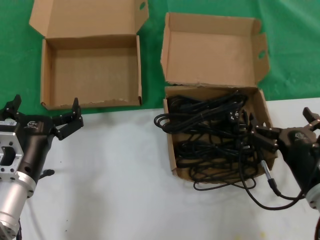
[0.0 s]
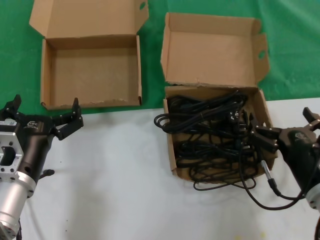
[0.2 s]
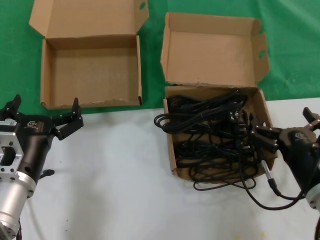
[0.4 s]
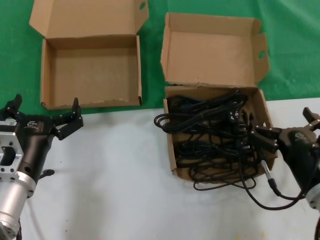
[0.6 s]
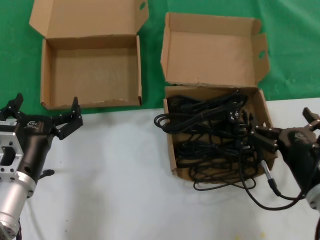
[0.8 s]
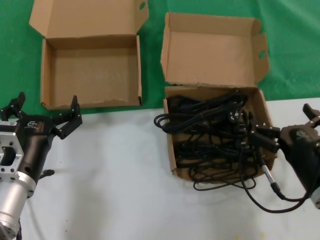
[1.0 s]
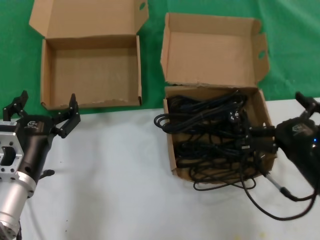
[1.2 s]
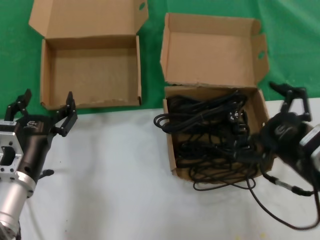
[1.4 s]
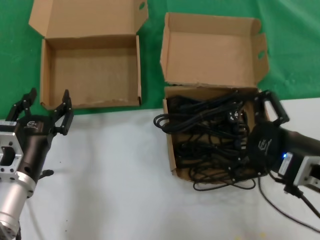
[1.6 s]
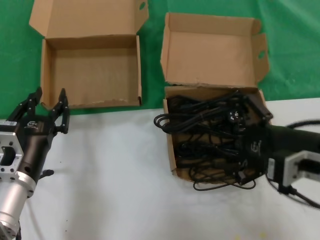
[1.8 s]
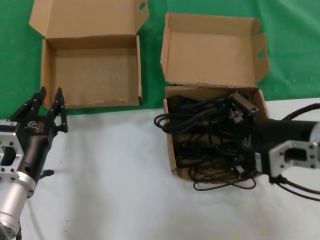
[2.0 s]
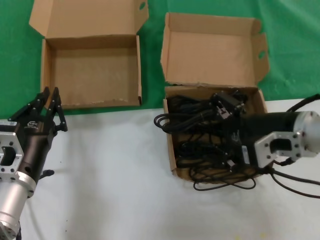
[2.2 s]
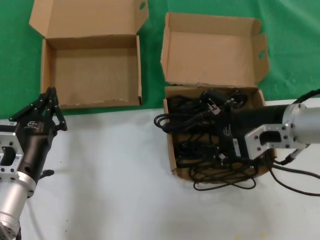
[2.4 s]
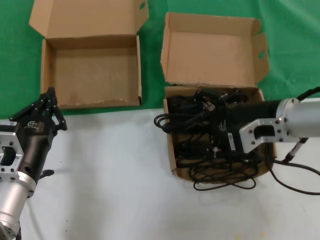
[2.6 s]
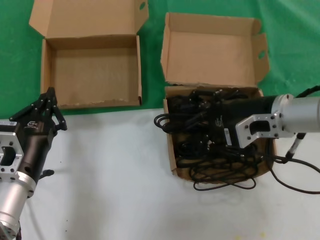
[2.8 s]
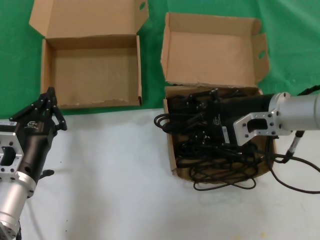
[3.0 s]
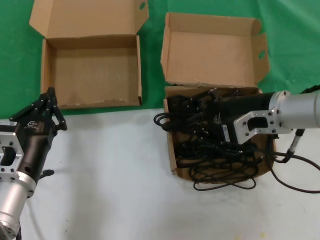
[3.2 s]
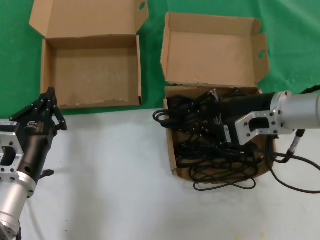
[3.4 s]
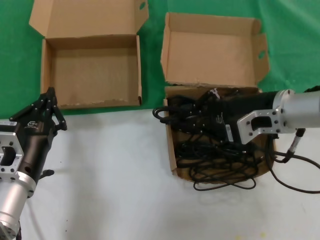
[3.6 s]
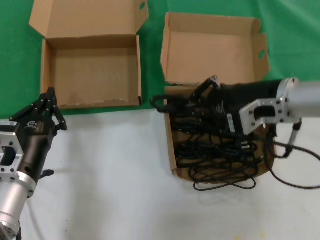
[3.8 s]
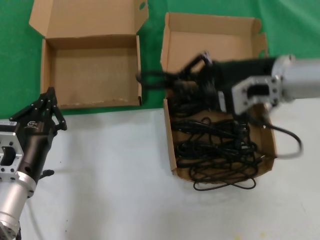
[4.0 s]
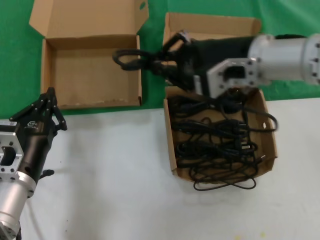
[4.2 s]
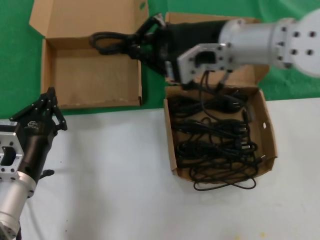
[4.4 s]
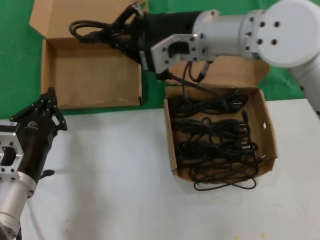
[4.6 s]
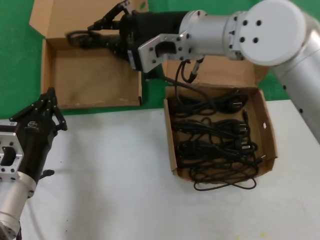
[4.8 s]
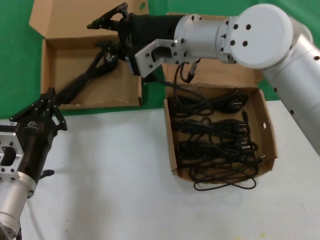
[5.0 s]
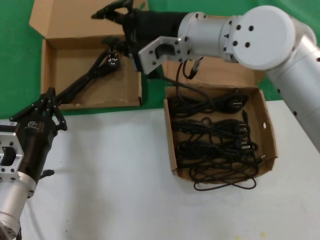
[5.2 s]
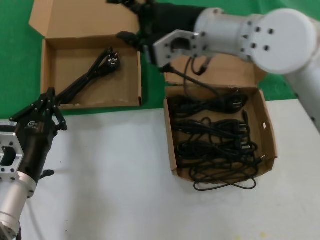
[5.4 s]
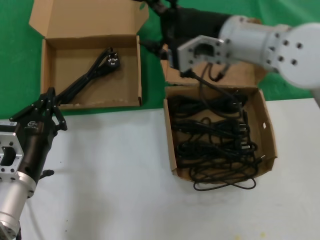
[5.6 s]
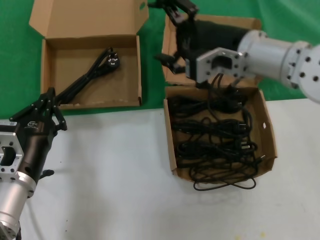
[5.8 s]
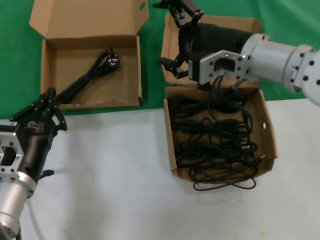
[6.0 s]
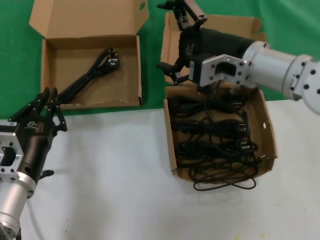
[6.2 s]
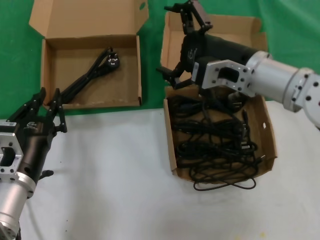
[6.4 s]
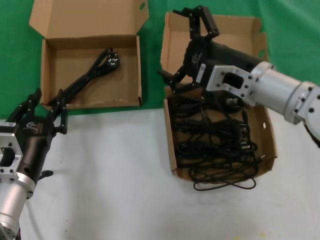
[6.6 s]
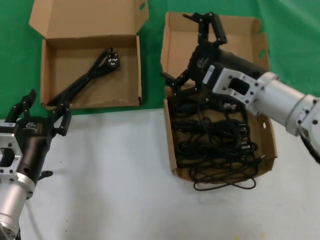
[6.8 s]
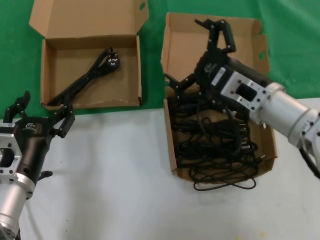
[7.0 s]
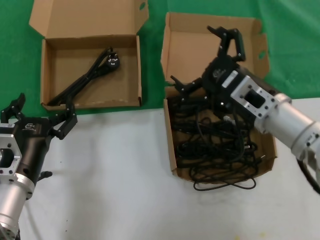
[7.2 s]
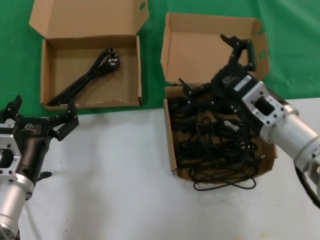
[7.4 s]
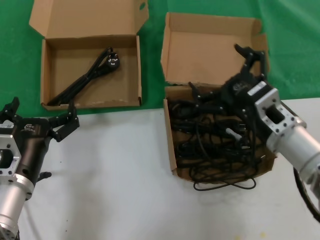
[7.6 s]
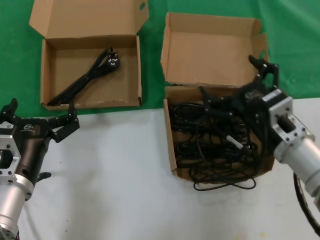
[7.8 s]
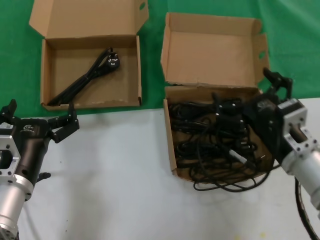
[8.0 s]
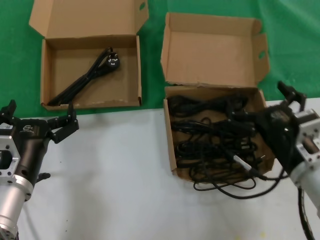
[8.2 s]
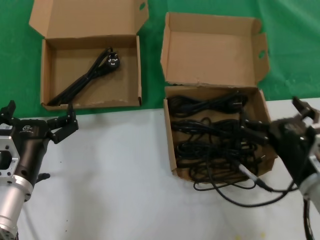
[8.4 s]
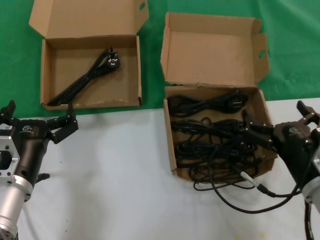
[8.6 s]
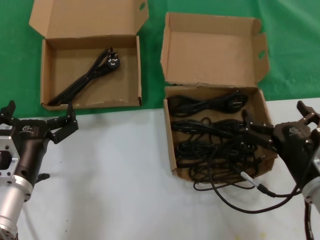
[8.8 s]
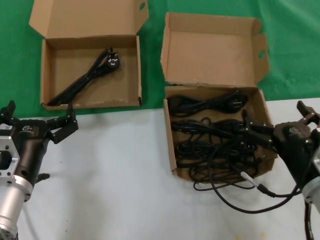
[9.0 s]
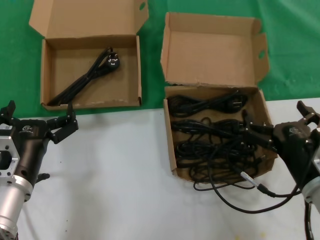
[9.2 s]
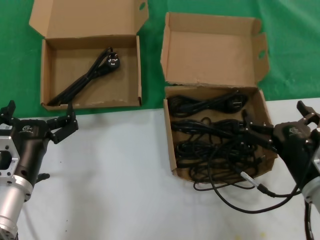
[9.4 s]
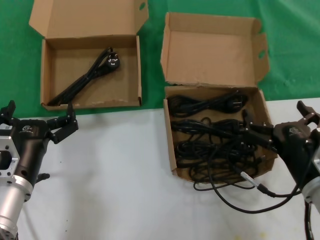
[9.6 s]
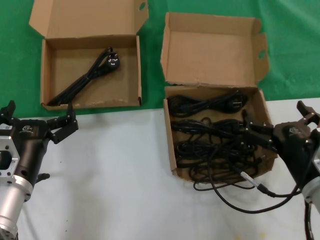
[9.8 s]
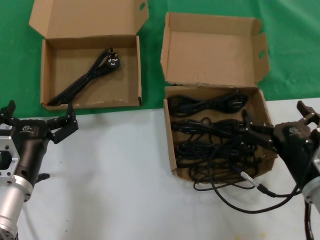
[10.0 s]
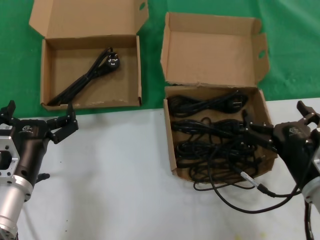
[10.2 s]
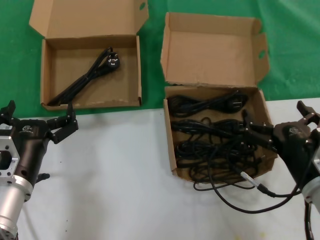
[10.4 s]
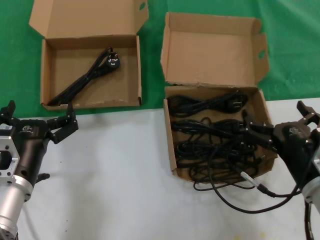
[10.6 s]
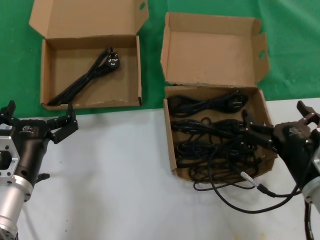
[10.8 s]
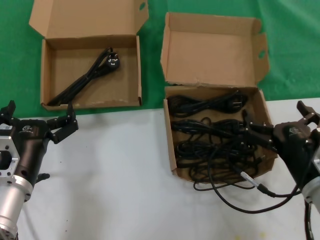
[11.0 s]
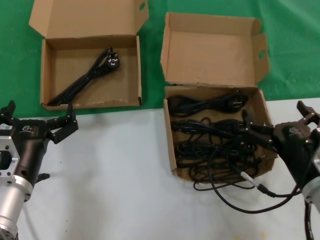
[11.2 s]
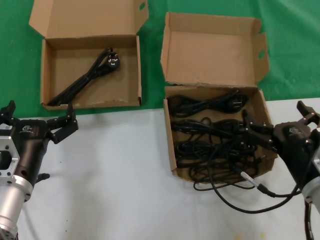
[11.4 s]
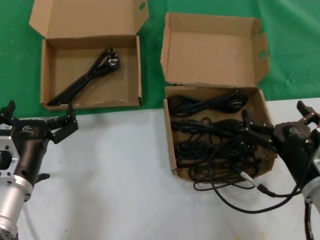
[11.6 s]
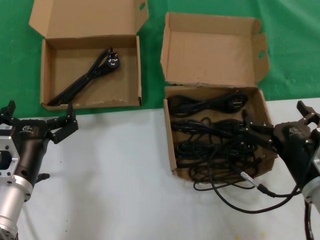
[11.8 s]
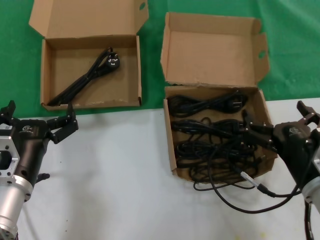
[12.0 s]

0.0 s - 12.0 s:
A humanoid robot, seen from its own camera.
Task of the whole recording: take the parts from the box containing them and put them into an empty box.
Step, 0.0 s - 3.4 s: Grasp the data cable.
Step, 3.6 s - 5.0 s: Place the data cable in the another box.
0.0 s - 1.6 s: The right hand travels upward by approximately 10 cm.
1.6 s - 3.0 s: The right hand is displaced forward by roughly 15 cm.
3.0 s - 4.4 s: The right hand travels upward and to the left by roughly 15 cm.
4.4 s - 6.0 s: The right hand travels to the left and back again, approximately 5 cm each way.
6.0 s - 7.6 s: The right hand moves downward and backward, approximately 15 cm.
7.6 s - 9.0 s: The right hand shifts about 10 cm backward and downward.
9.0 s - 12.0 s: Neither hand changes place.

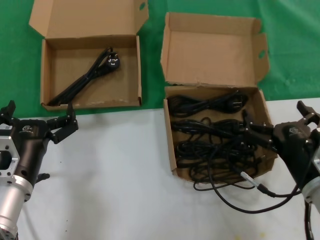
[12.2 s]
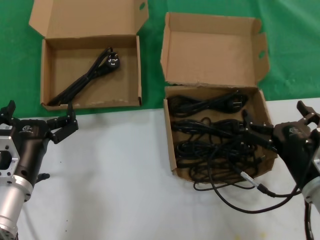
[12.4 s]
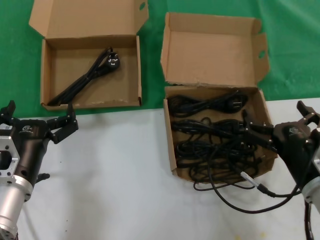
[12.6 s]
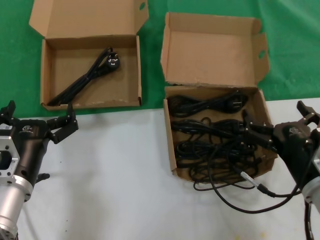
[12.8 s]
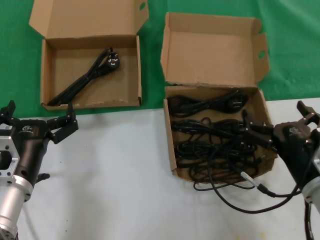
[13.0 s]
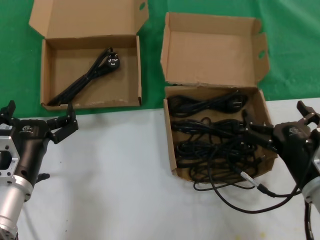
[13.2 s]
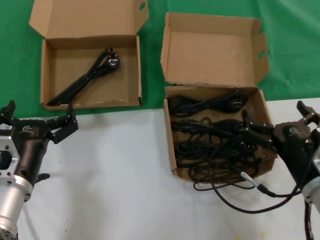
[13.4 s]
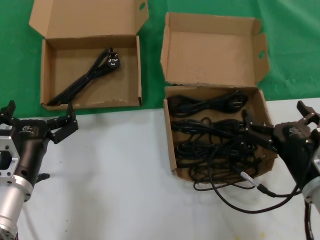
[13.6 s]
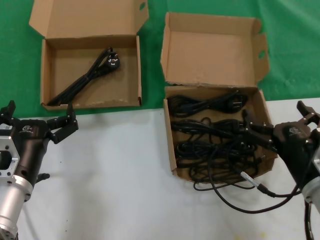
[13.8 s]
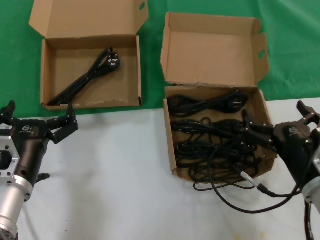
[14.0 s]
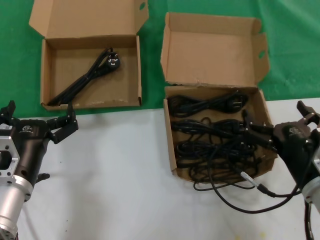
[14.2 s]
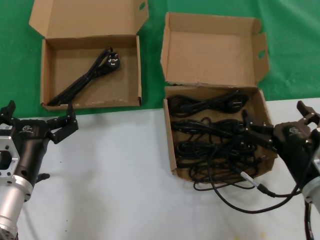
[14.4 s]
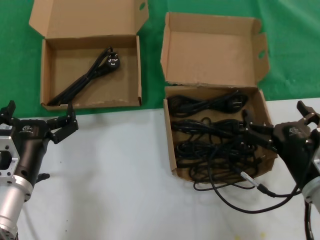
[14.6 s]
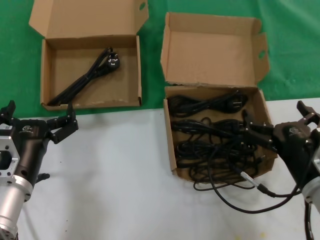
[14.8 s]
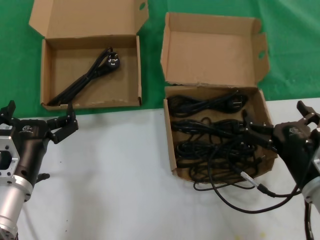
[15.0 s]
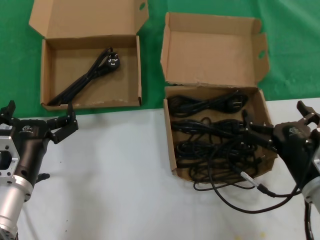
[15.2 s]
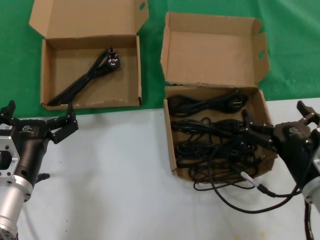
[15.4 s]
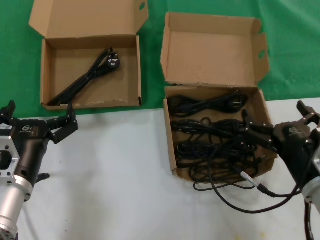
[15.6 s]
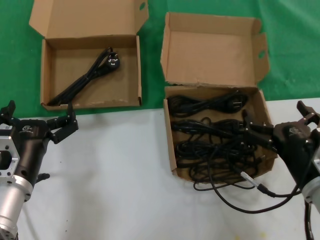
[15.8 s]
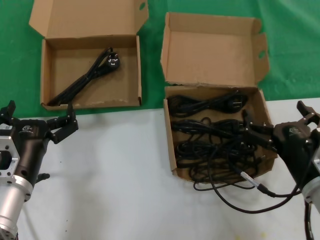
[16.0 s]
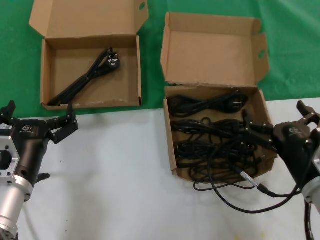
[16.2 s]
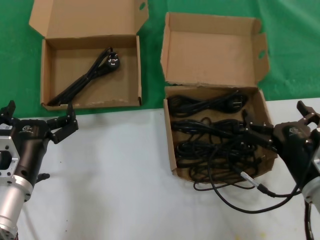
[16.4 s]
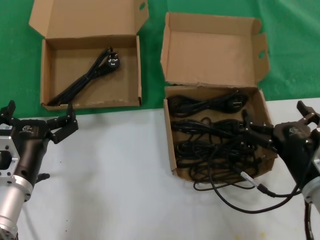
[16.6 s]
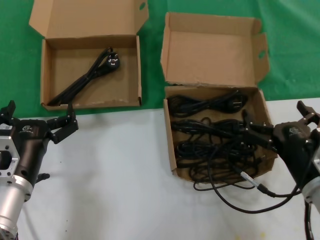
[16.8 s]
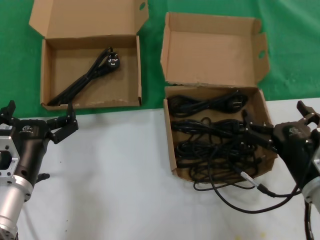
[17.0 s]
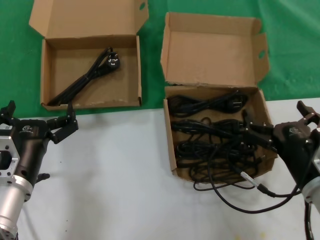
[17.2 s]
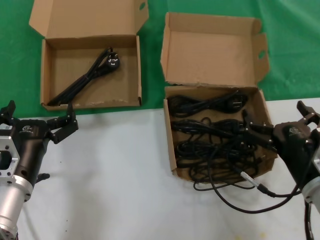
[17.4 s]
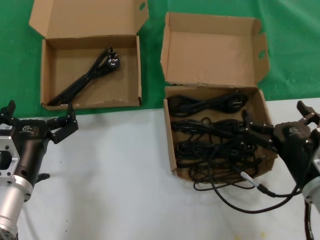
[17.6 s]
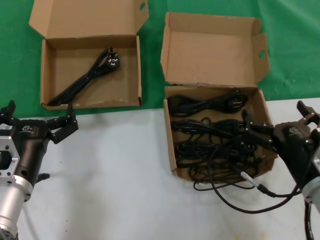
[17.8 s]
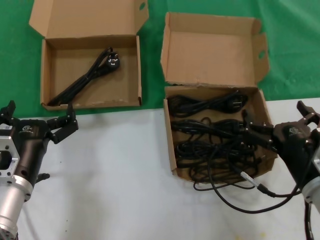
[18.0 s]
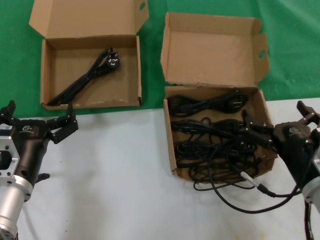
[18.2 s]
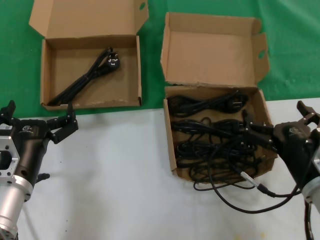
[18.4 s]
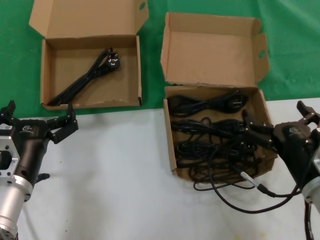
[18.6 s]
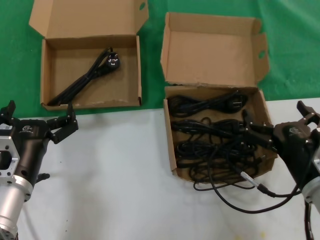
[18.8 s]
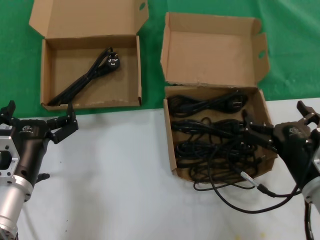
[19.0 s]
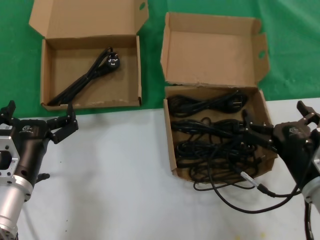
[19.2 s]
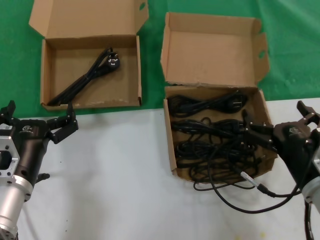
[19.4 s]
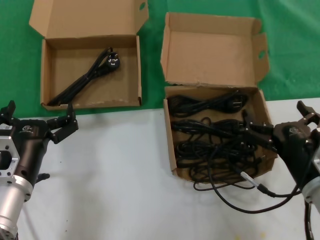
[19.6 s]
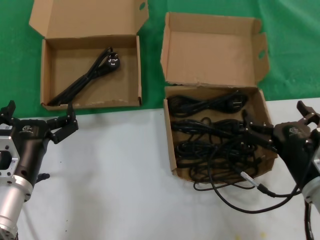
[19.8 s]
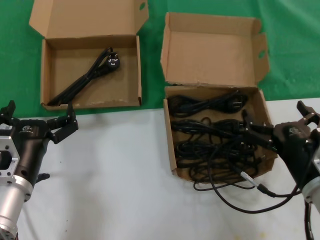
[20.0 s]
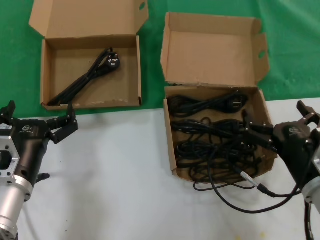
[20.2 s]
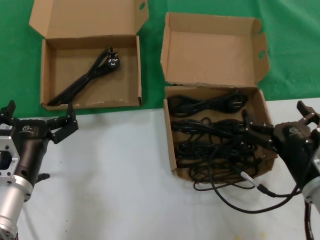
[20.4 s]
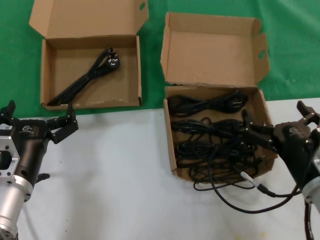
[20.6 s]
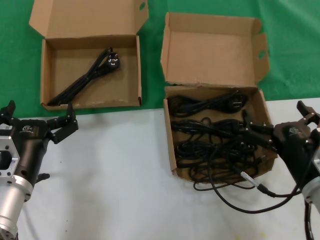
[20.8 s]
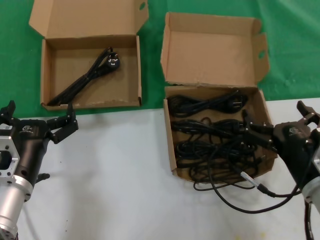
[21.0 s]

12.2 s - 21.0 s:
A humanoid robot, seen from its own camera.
Task of the whole recording: take the parts from the box containing them and put them into an empty box.
12.2 s - 21.0 s: Neither hand changes place.

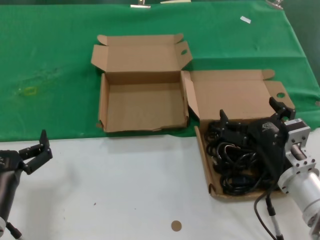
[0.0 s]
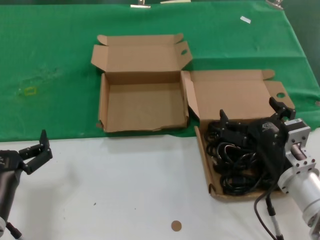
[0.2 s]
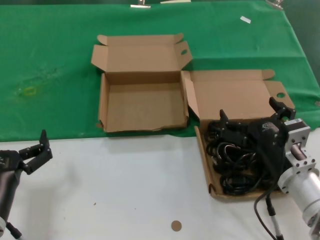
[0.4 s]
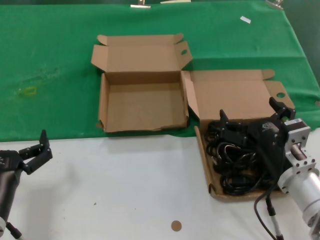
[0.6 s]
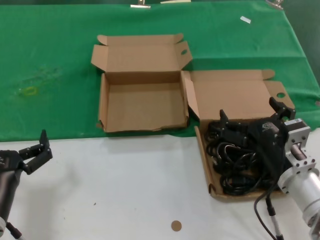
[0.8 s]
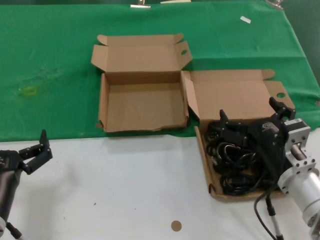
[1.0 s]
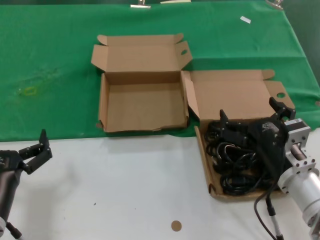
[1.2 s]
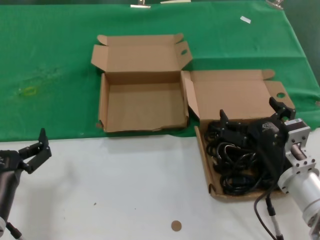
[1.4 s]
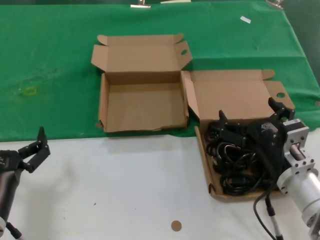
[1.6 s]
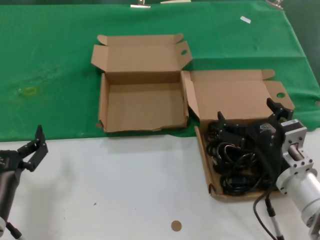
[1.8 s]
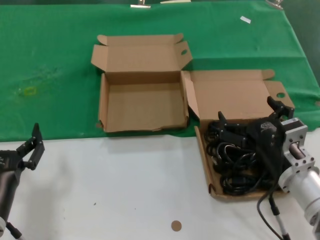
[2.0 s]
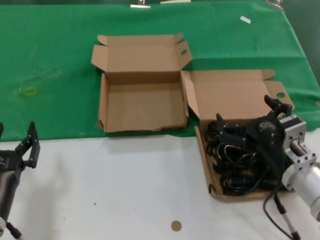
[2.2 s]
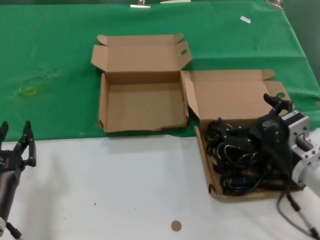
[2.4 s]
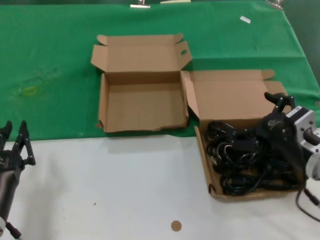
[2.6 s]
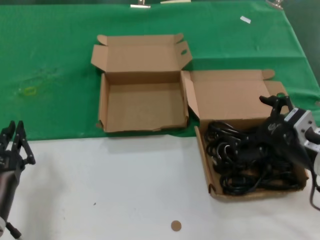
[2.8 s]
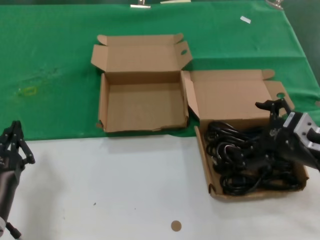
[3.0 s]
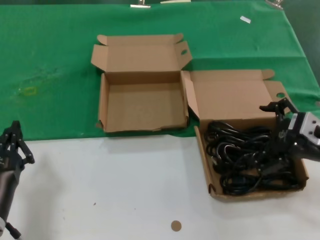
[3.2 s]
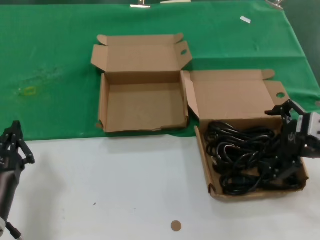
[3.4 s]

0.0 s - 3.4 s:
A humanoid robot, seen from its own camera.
Task of the whole recording: take the parts from the box containing them and put them into an empty box.
0.0 s - 1.6 s: Both hands stay about where they are.
1.6 s - 3.4 s: The right hand heads upward and to the right, covering some 15 cm.
